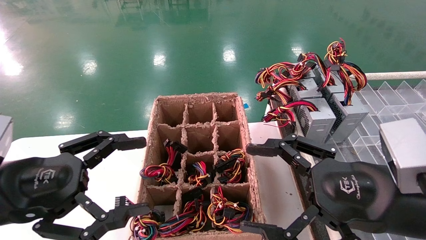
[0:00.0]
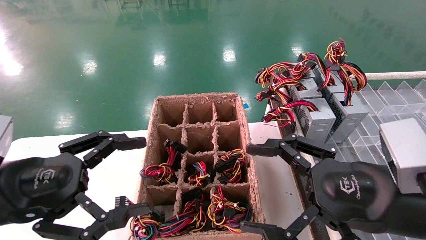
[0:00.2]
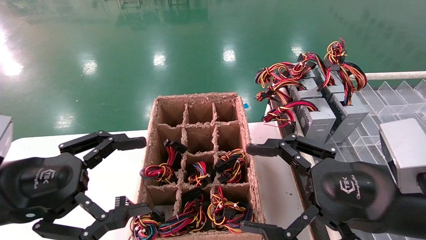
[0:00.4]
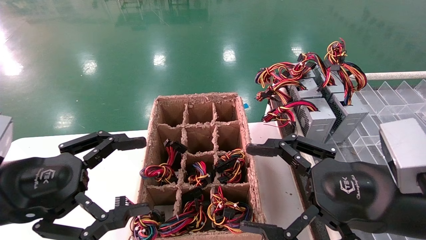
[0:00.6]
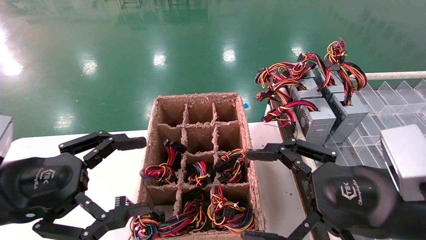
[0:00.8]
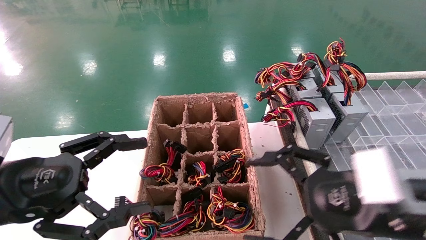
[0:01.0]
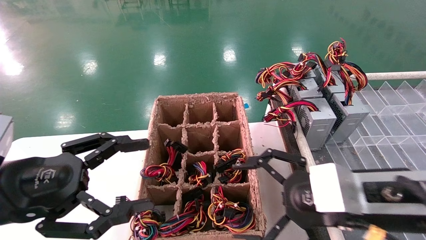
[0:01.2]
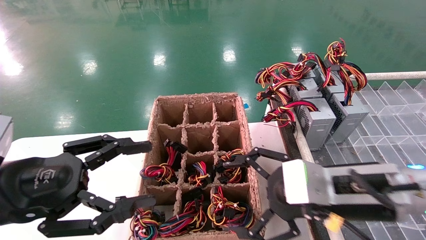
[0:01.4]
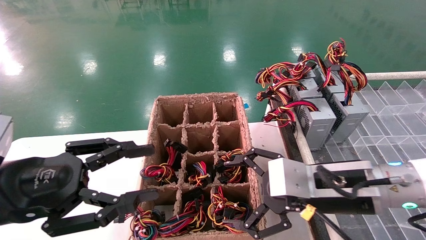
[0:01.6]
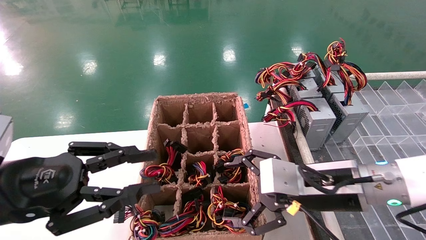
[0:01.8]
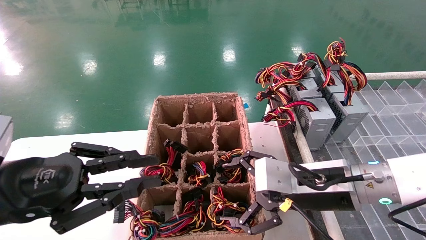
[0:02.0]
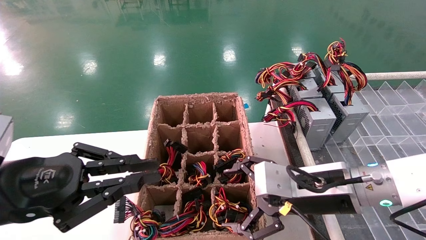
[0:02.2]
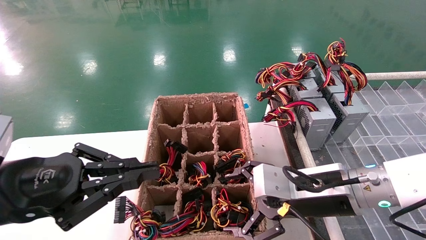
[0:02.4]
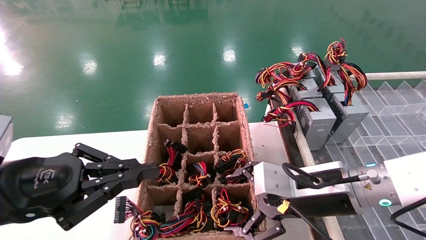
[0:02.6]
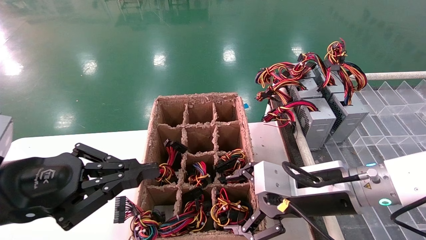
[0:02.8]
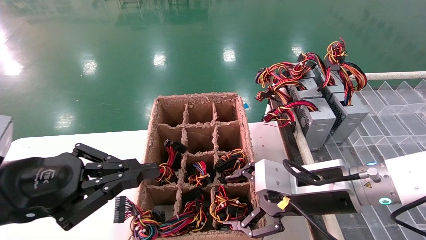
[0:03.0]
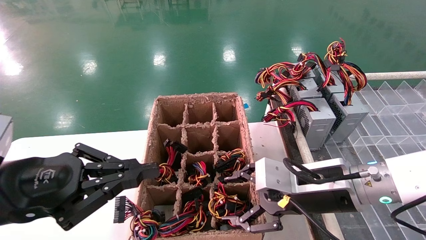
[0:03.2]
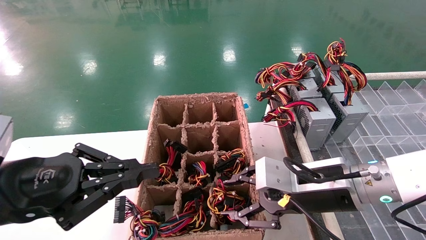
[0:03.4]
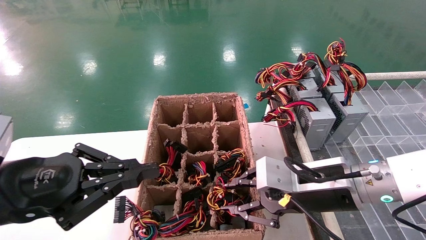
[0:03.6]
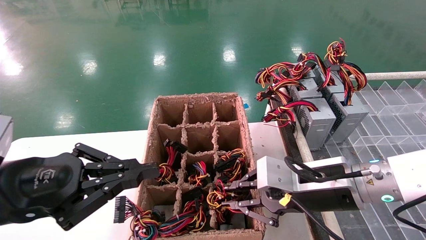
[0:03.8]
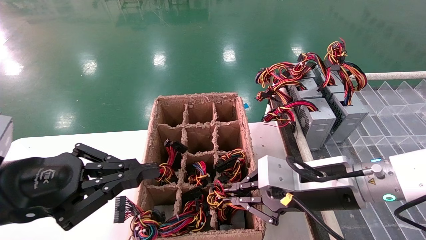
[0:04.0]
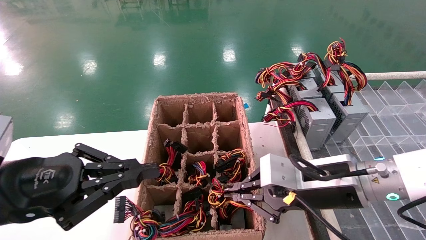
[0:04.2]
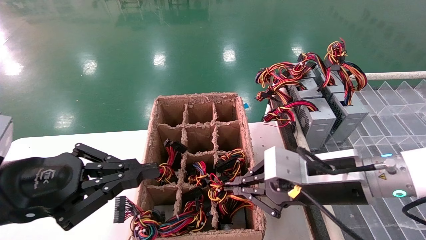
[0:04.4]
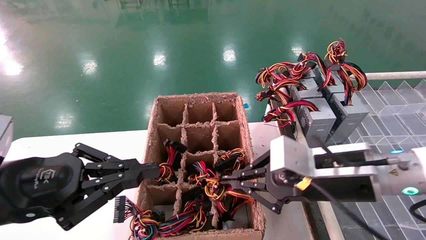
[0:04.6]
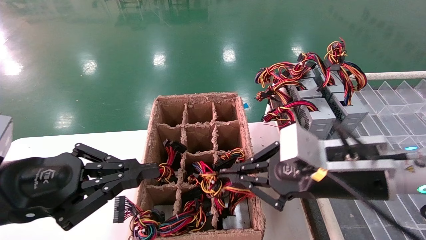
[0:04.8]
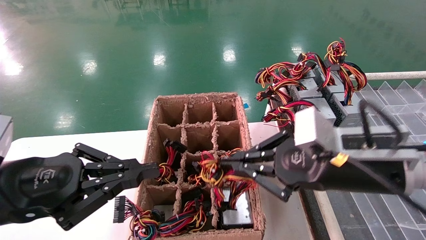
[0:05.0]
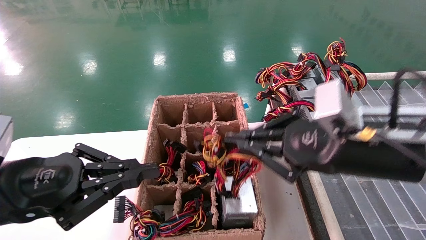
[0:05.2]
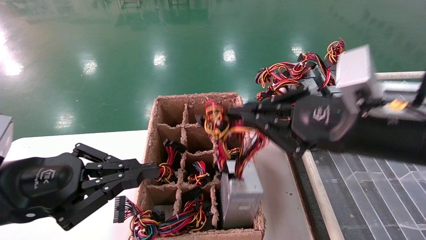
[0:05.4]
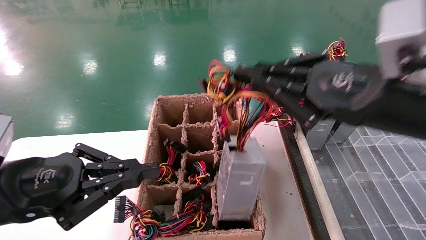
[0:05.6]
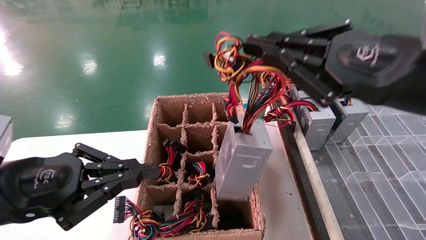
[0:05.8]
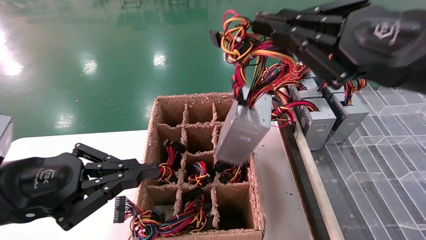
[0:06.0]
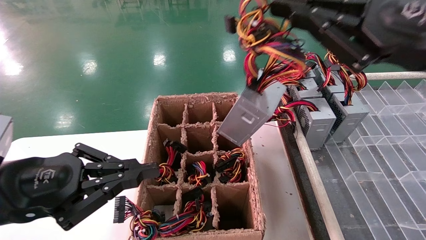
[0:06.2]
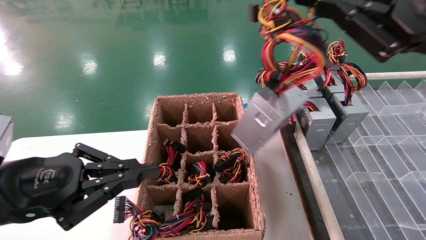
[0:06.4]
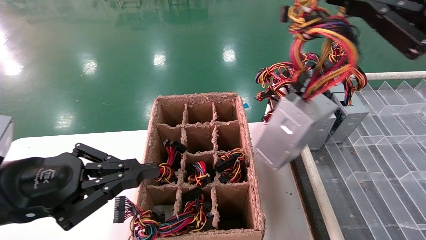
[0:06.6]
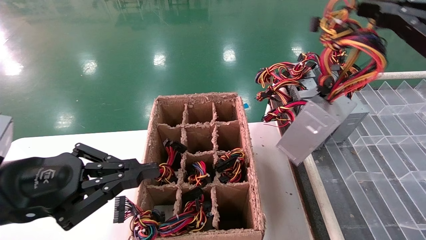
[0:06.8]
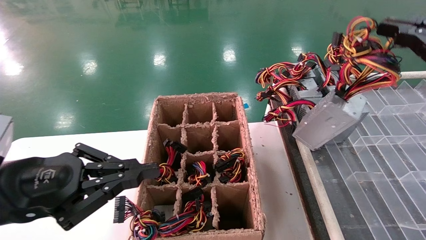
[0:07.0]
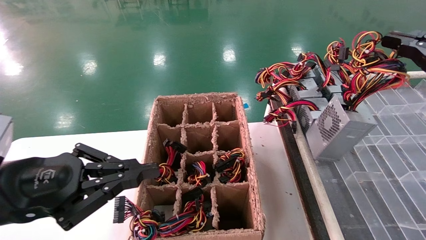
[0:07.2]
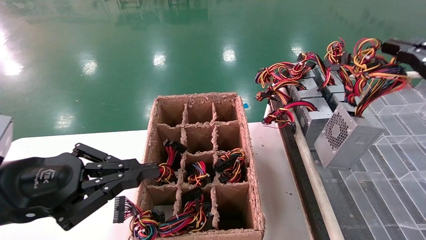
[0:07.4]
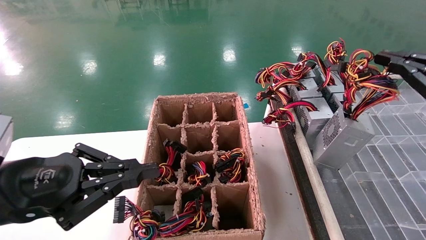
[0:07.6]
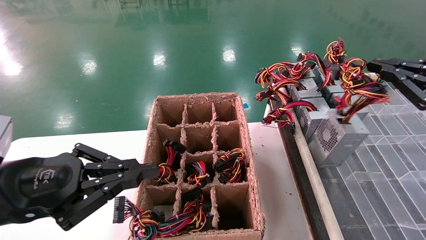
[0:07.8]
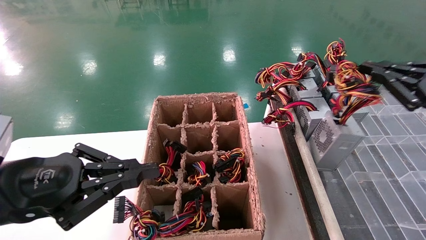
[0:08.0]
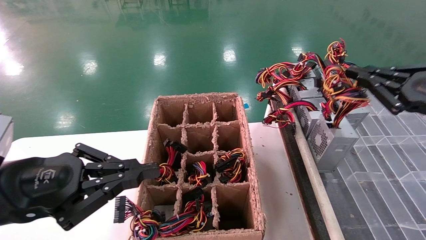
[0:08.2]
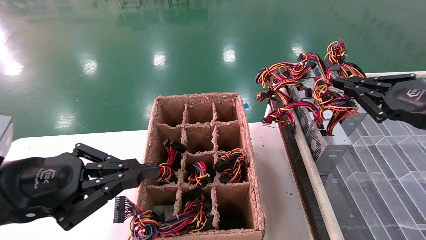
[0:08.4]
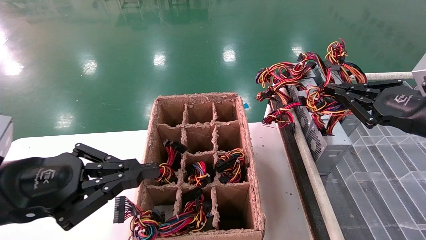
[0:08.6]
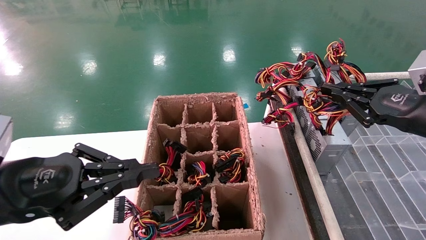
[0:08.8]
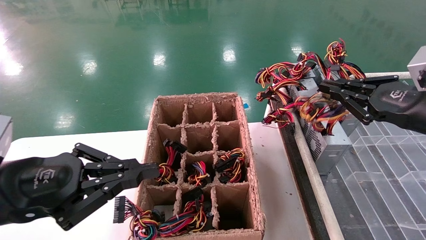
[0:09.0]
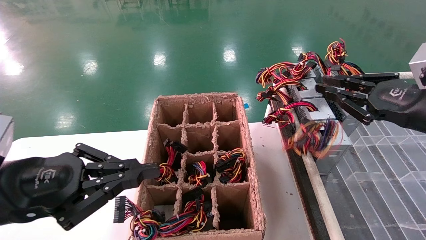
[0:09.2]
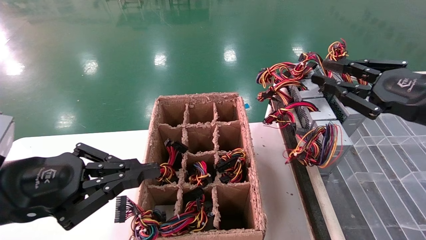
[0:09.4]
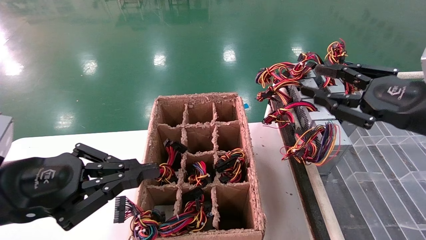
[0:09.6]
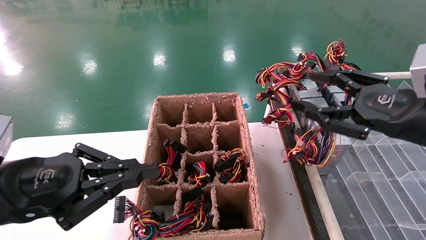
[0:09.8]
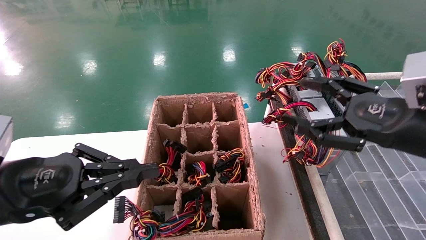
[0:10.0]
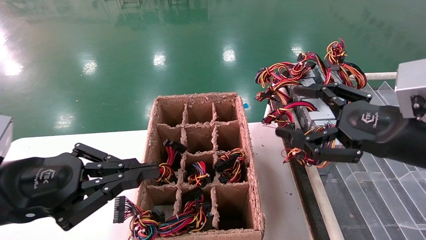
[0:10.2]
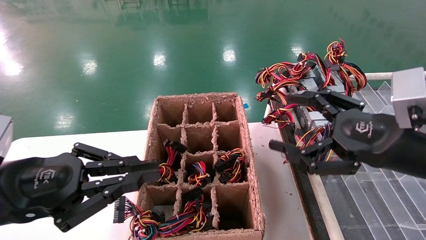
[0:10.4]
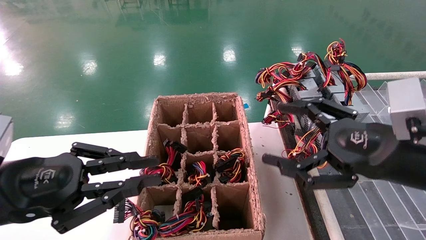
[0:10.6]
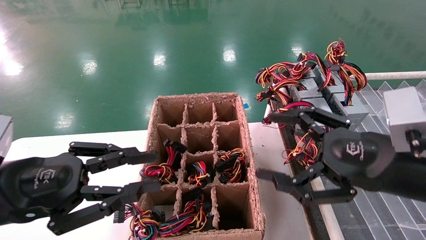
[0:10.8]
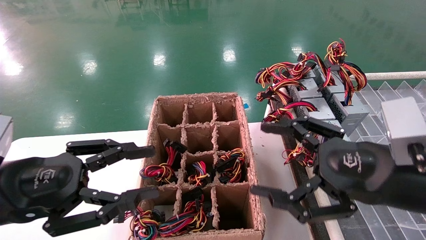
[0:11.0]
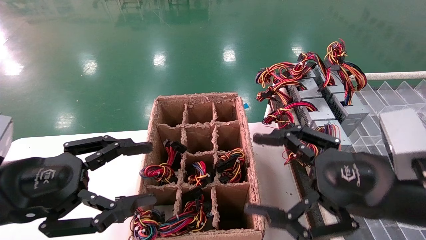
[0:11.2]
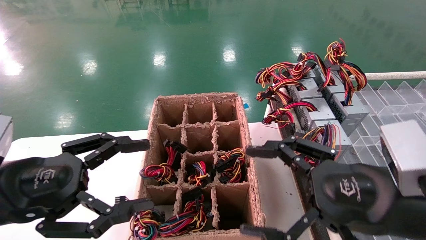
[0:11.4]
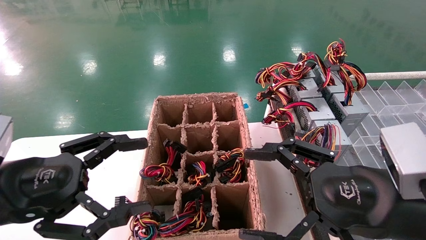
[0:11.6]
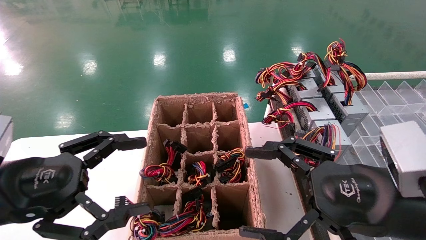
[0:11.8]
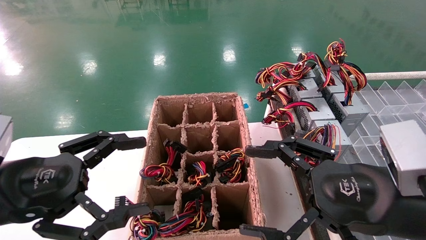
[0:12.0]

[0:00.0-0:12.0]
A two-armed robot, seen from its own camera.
Step, 0:01.2 to 0:04.2: Grab the main unit power supply from the containment box.
Step, 0:04.4 to 0:09.2: Place the main unit power supply in the designated area.
0:00.0 to 0:01.6: The right gripper goes approximately 5 cm forward.
0:01.6 to 0:03.0: The left gripper closes.
0:03.0 to 0:04.4: The right gripper closes up.
0:04.4 to 0:06.0: The right gripper moves upward and backward, about 20 cm.
0:06.0 to 0:07.6: The right gripper is displaced to the right by roughly 15 cm.
0:07.6 to 0:09.0: The right gripper shifts some 5 cm forward.
0:09.0 to 0:10.4: The right gripper is displaced to the left by roughly 10 cm, and opens up.
0:10.4 to 0:12.0: The left gripper opens its fingers. Meanwhile the right gripper shifts by about 5 cm.

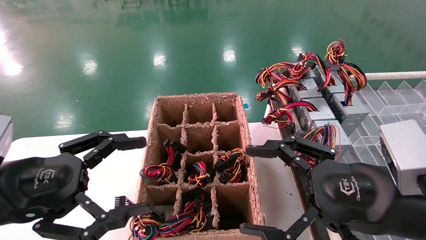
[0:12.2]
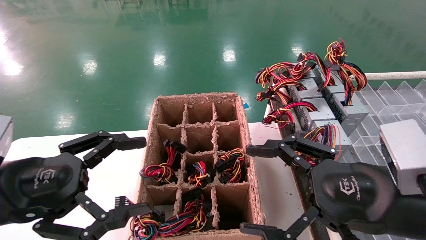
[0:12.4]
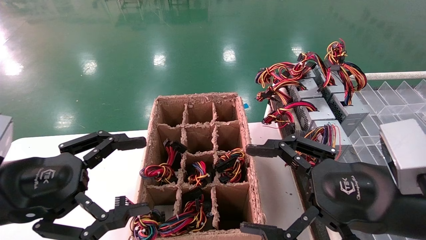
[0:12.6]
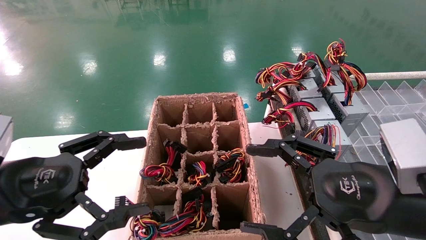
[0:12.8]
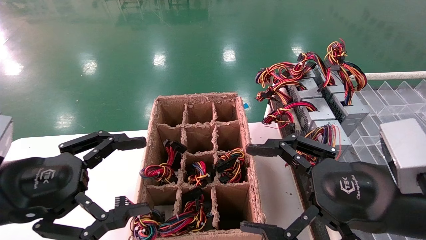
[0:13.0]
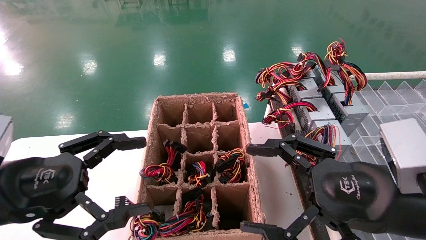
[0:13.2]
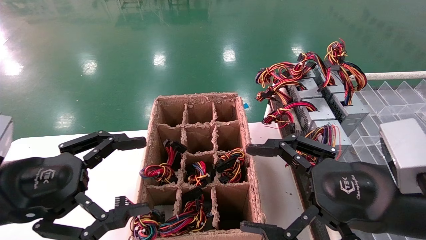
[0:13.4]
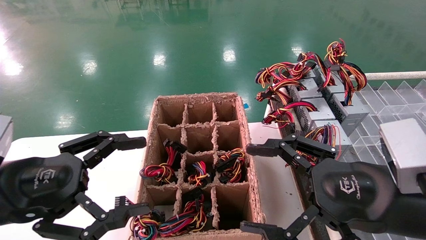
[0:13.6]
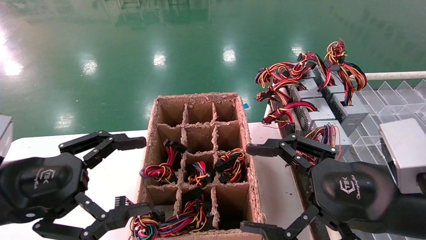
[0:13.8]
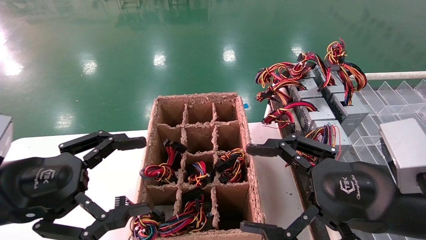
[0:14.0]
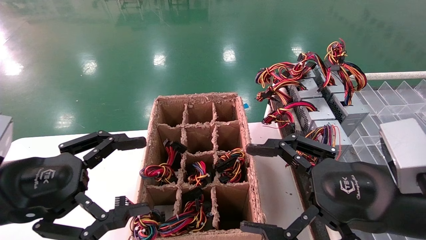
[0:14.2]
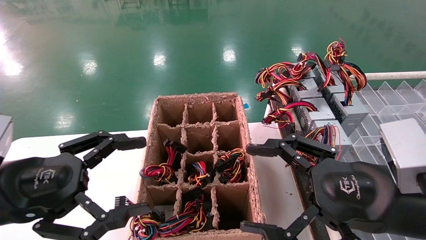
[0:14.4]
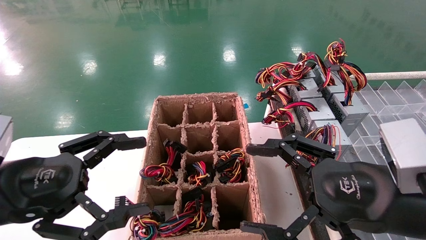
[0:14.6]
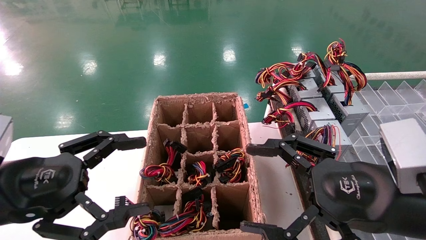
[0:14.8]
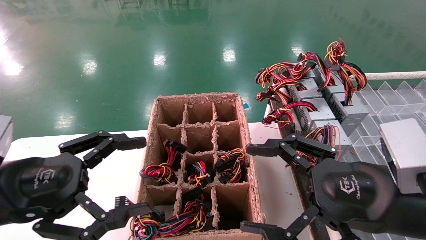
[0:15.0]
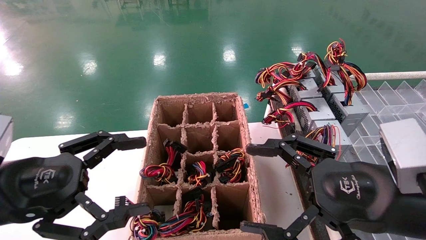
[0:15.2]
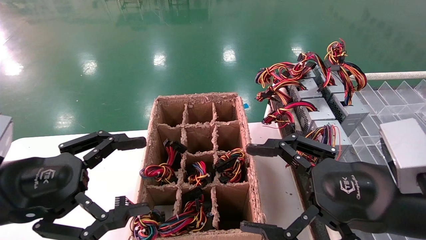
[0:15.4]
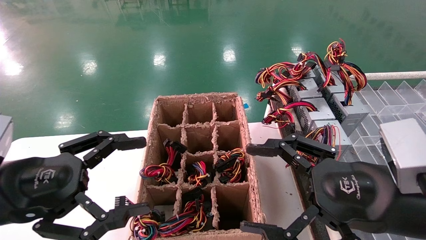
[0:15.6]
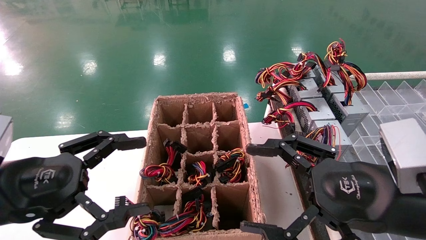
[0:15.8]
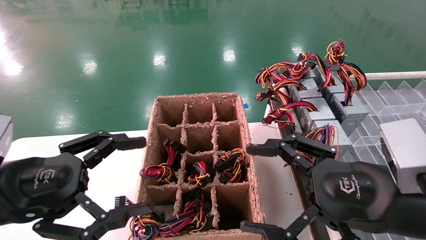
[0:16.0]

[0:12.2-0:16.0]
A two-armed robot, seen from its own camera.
0:12.2 to 0:16.0: Both grippers stay about where they are.

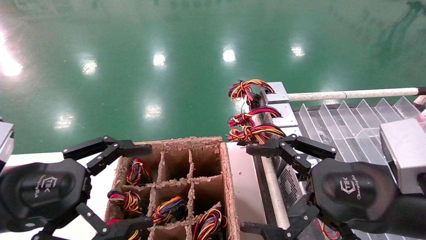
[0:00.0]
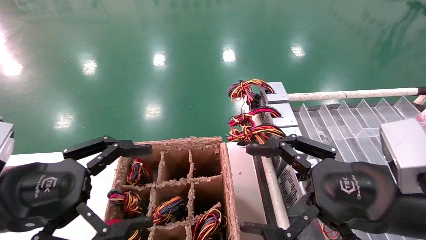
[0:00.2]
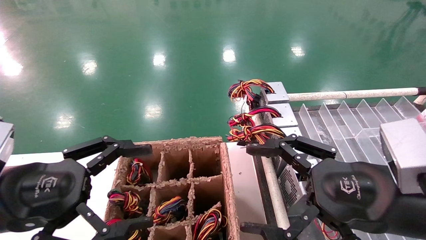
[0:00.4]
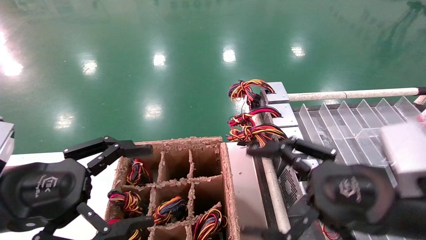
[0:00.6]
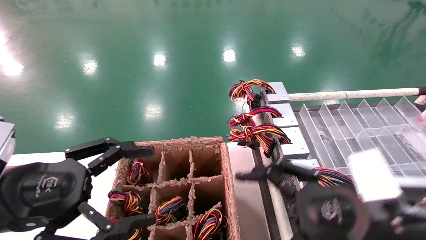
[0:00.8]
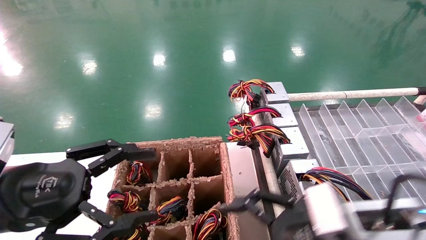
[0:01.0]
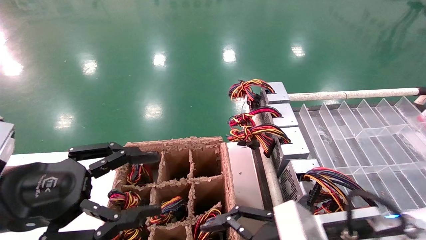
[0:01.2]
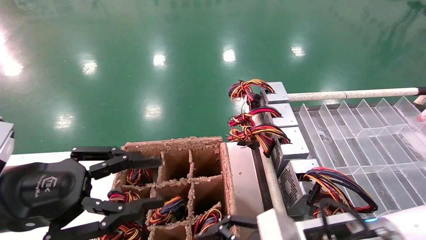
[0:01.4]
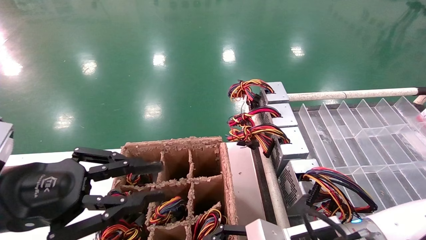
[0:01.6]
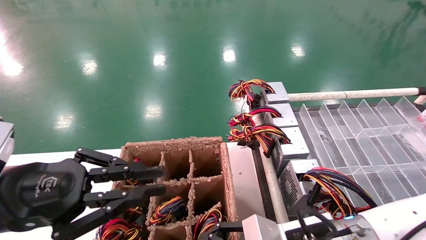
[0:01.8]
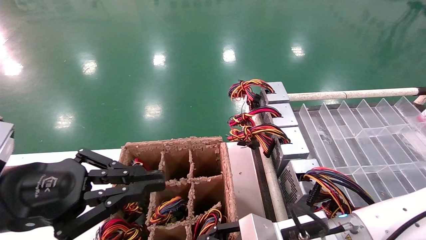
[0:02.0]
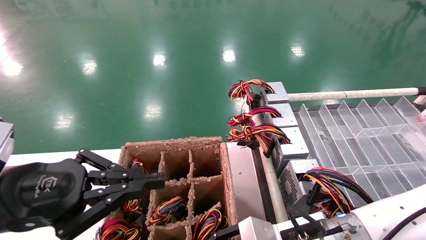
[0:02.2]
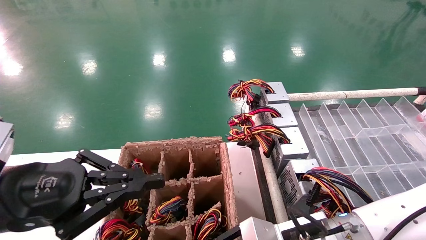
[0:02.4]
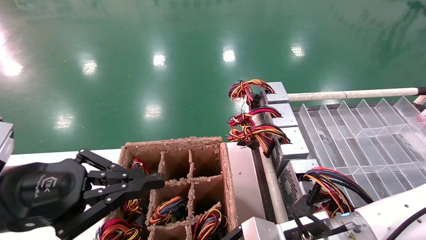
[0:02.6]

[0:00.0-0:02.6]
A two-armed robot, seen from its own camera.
0:00.0 to 0:01.2: The right gripper moves downward and to the left, about 10 cm.
0:01.2 to 0:02.6: The left gripper closes up. The right gripper changes place by about 5 cm, and closes up.
